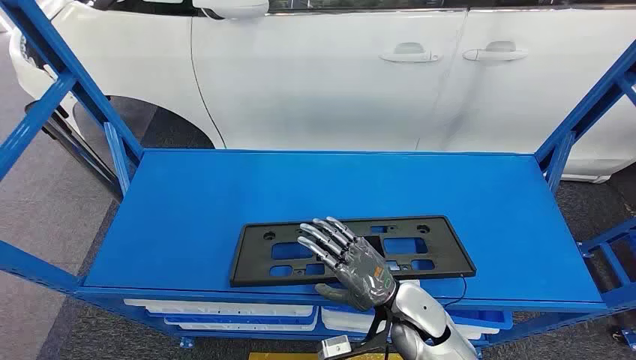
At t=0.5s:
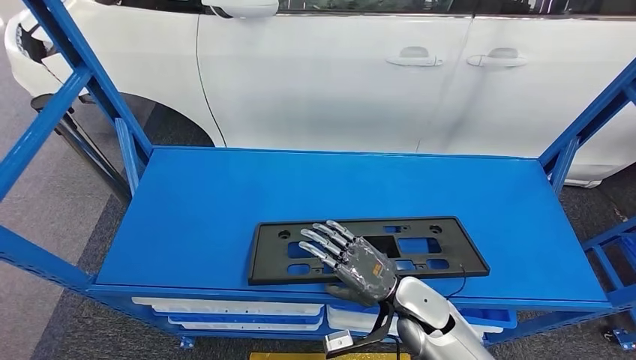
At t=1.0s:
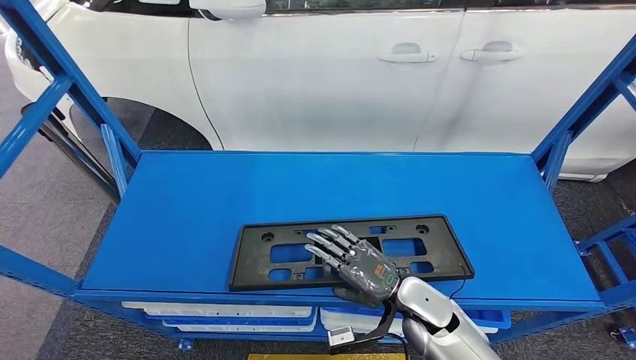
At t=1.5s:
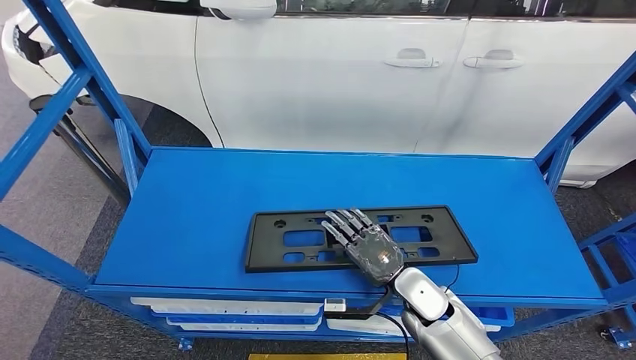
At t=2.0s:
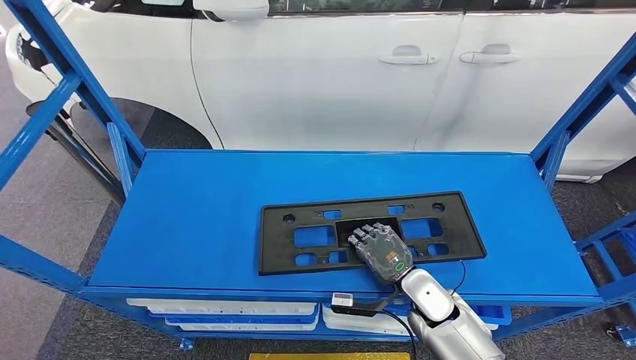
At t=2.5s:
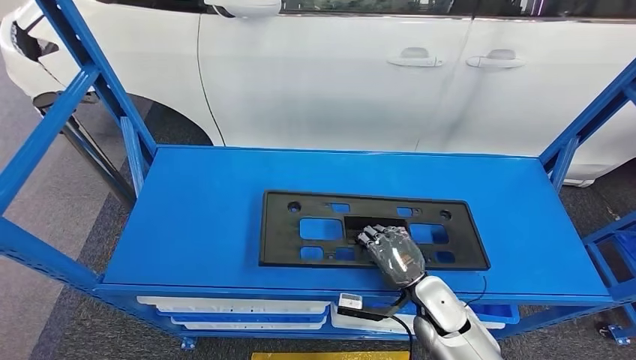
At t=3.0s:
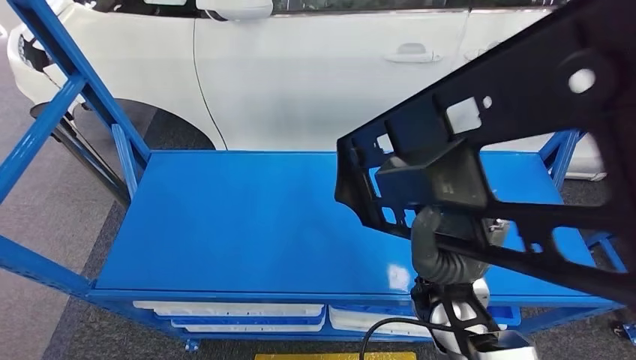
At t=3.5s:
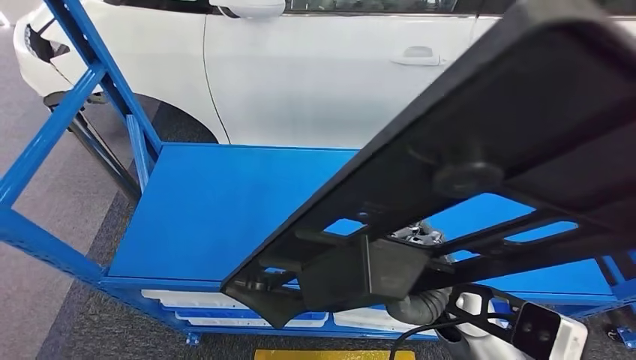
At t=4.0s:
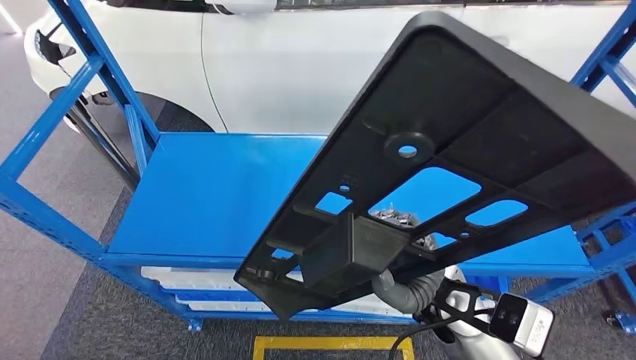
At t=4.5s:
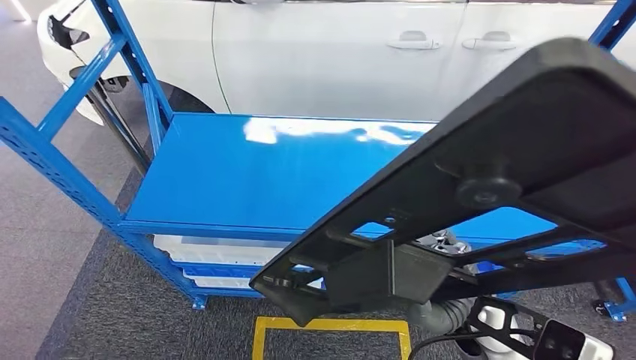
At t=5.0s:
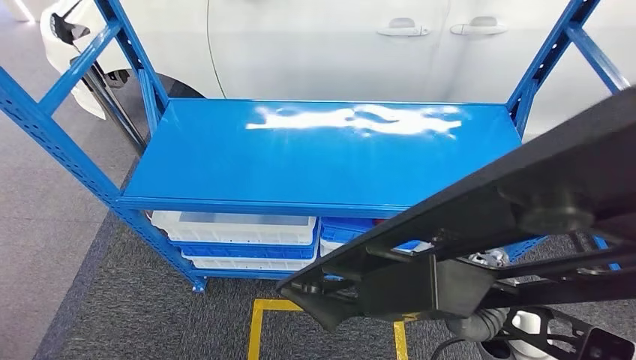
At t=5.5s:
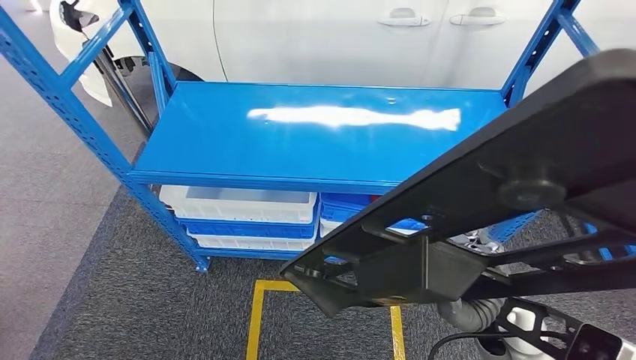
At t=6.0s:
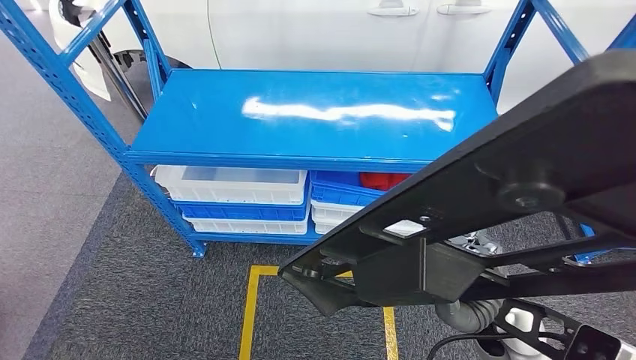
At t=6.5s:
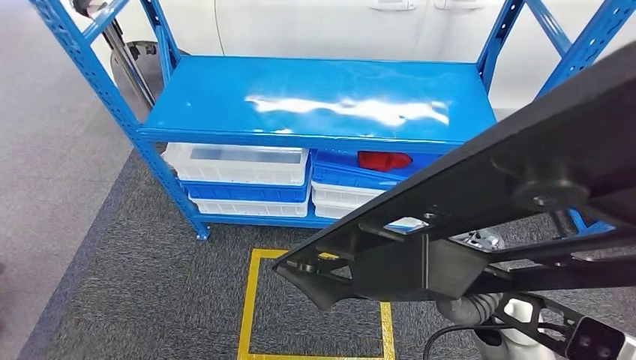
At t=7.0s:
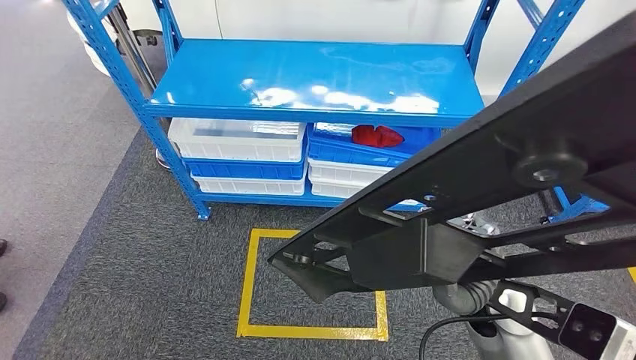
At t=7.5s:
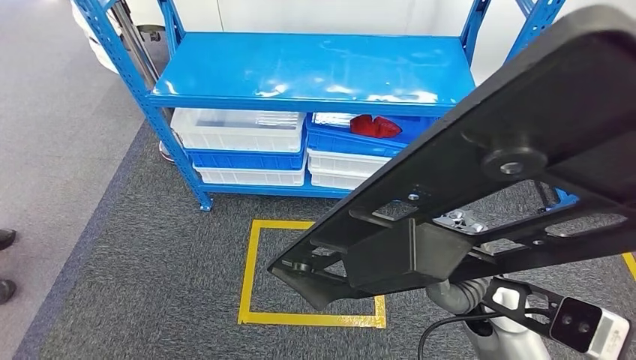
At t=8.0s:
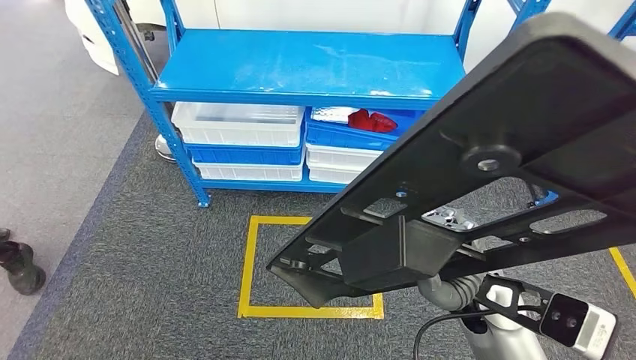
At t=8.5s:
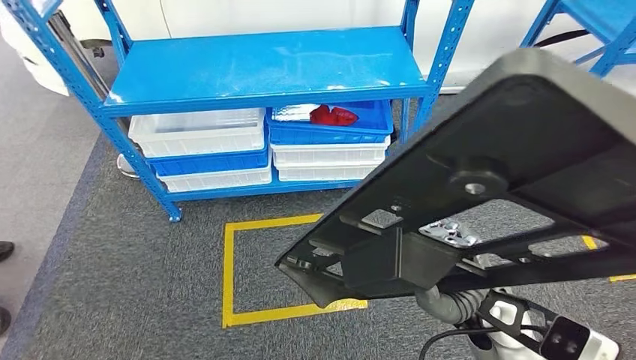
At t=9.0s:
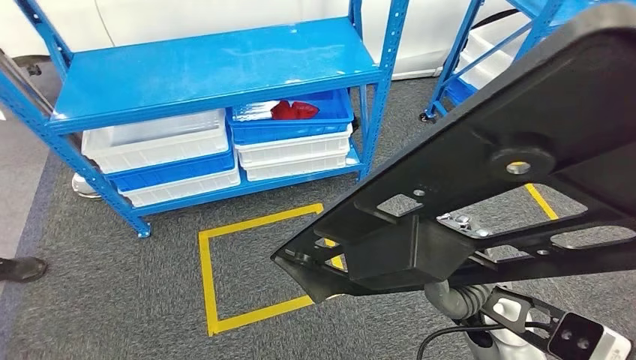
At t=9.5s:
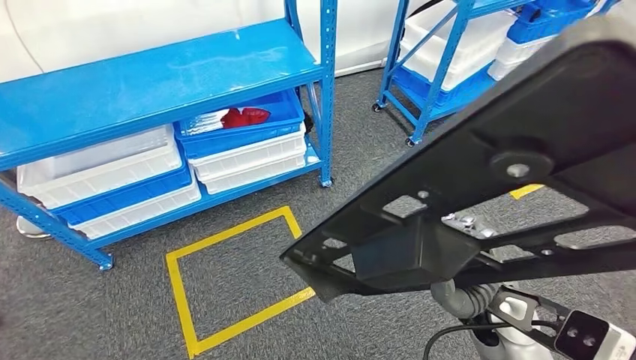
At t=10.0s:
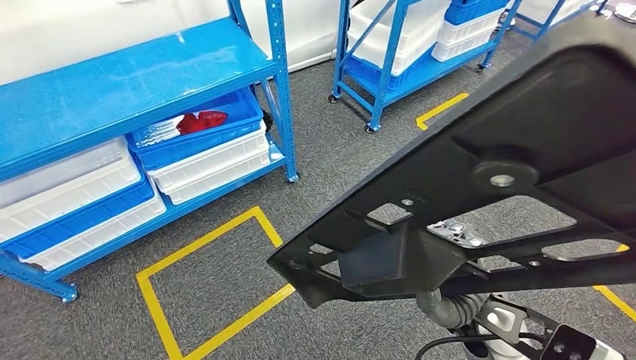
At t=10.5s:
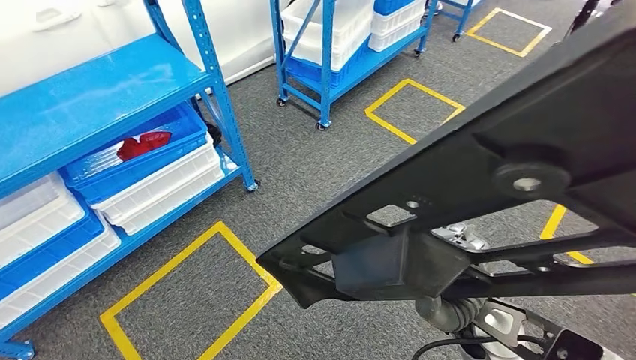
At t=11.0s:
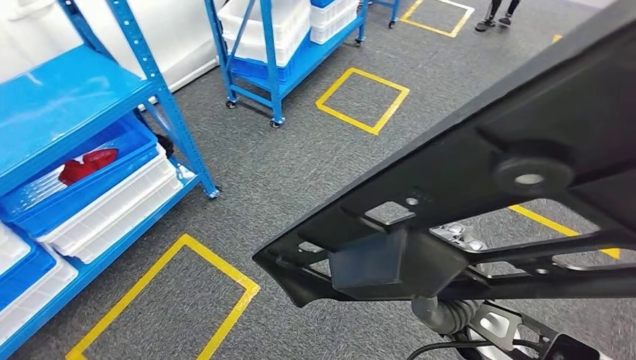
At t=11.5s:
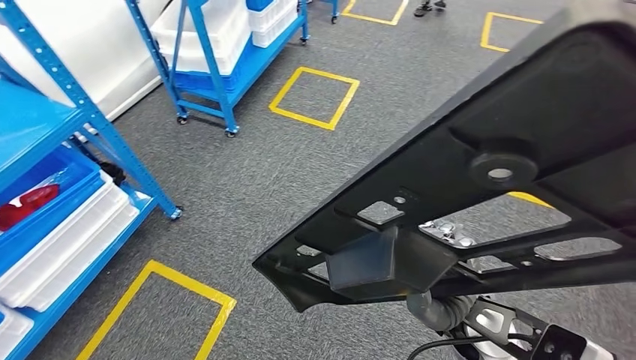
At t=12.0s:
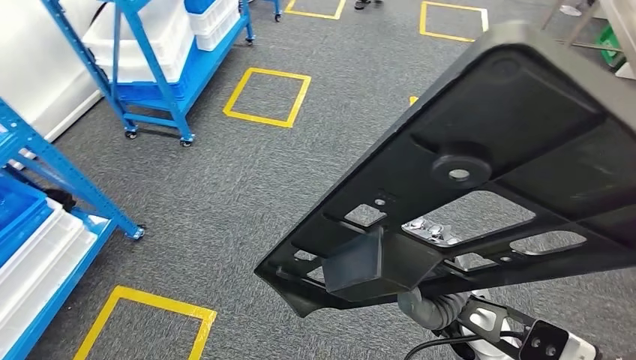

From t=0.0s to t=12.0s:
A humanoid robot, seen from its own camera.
Step, from t=0.0s to t=4.5s: Pick up the large material from the shelf.

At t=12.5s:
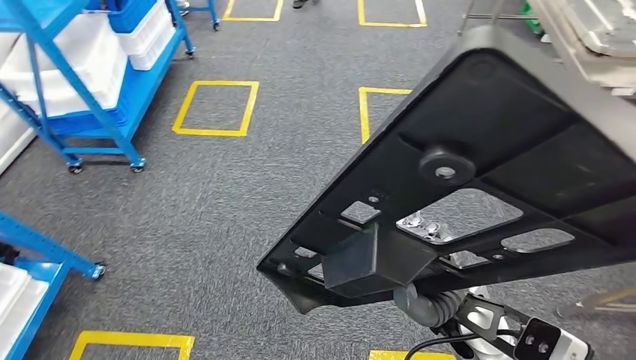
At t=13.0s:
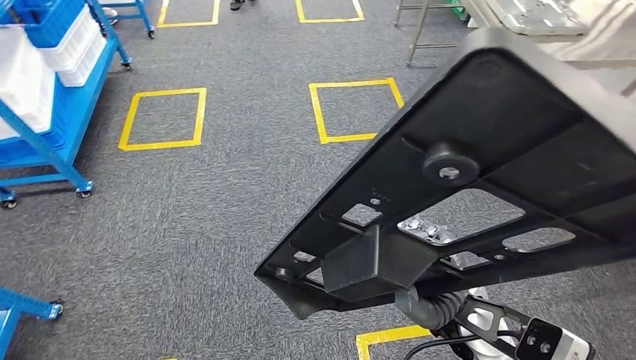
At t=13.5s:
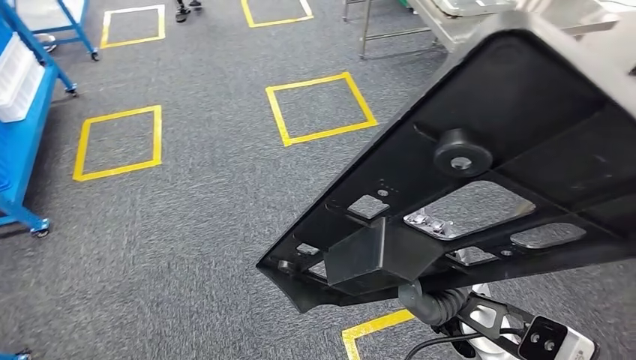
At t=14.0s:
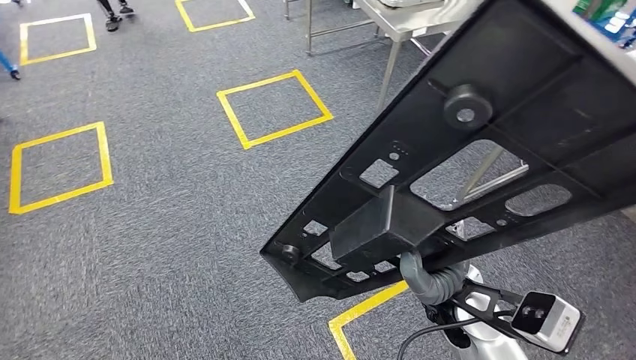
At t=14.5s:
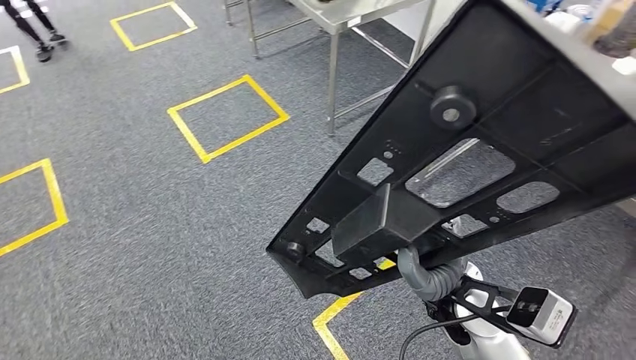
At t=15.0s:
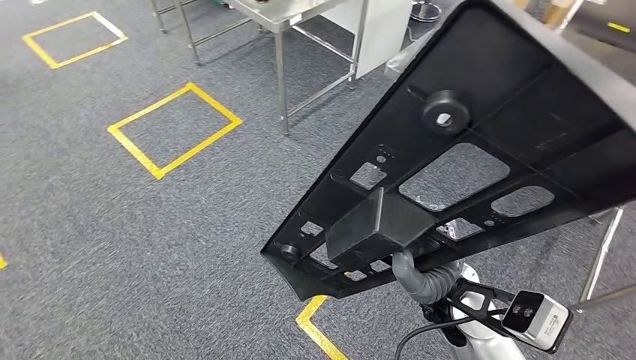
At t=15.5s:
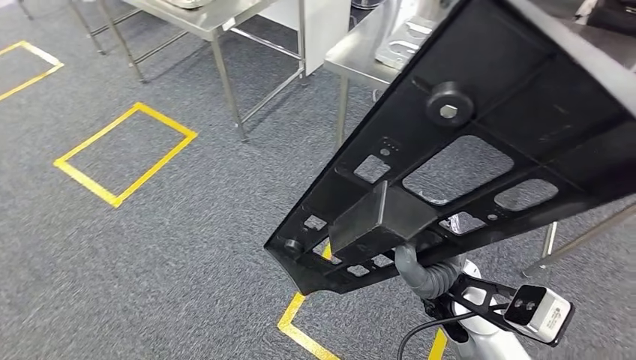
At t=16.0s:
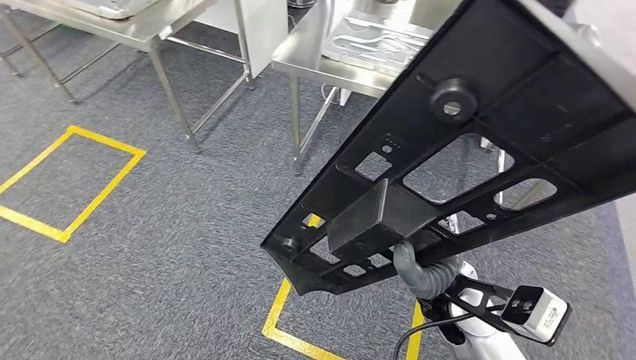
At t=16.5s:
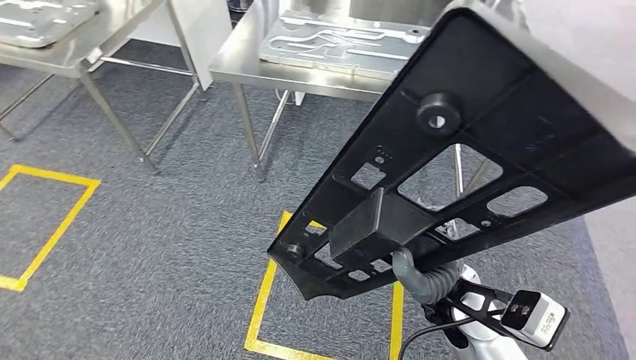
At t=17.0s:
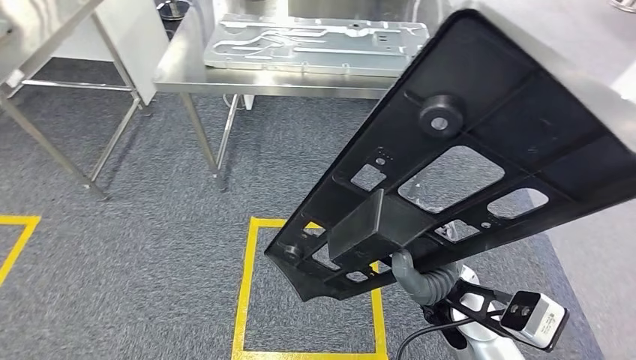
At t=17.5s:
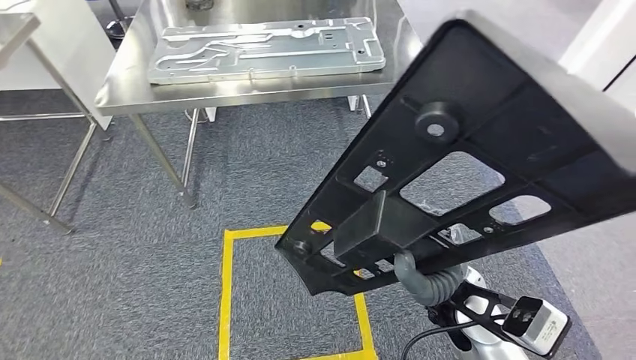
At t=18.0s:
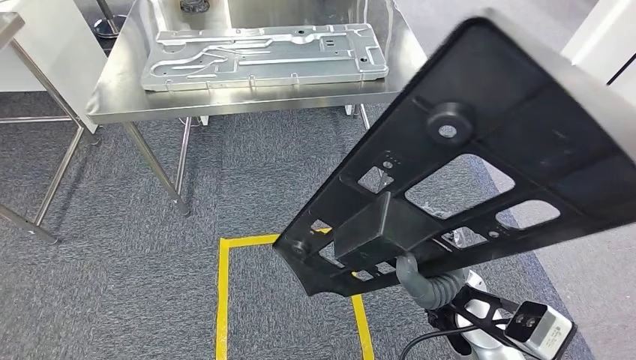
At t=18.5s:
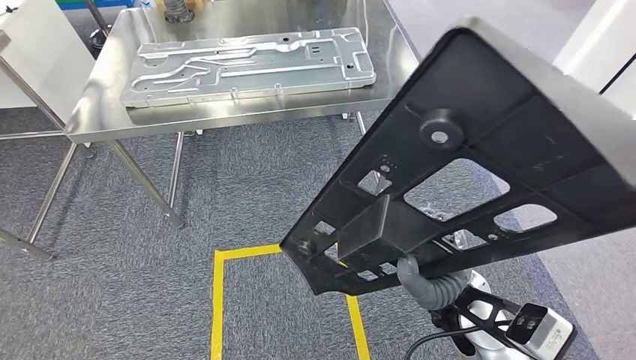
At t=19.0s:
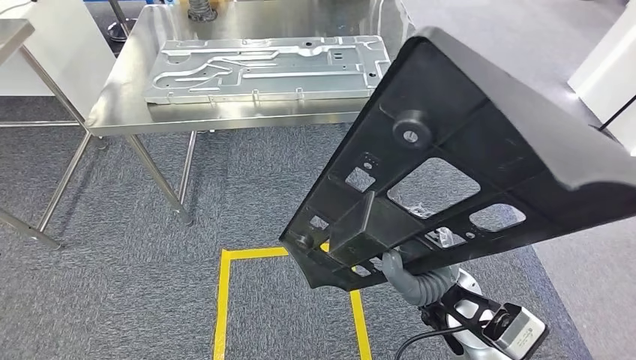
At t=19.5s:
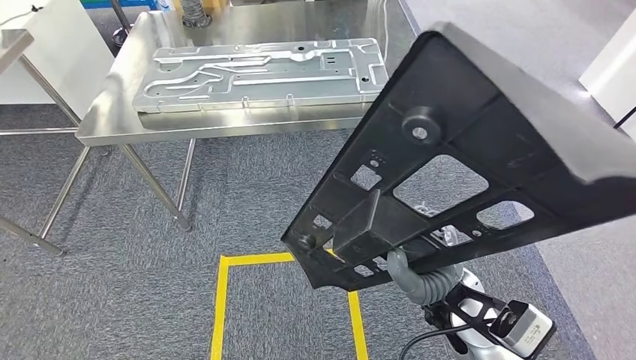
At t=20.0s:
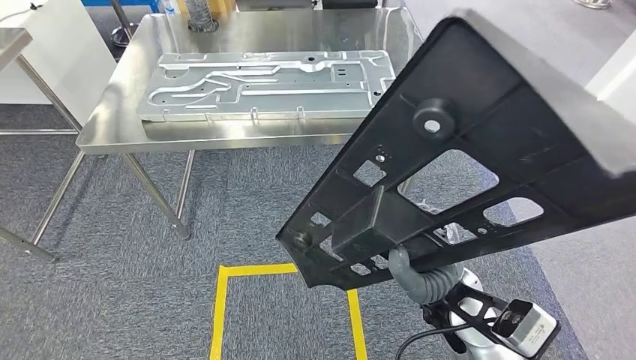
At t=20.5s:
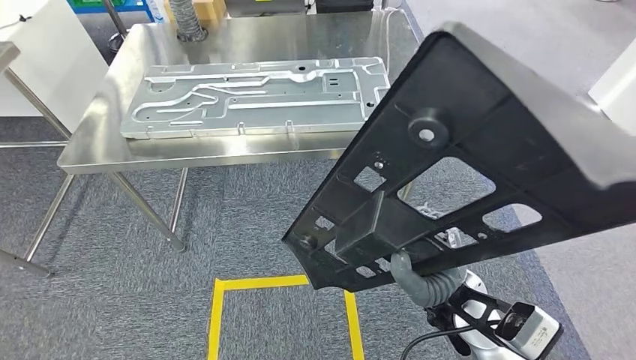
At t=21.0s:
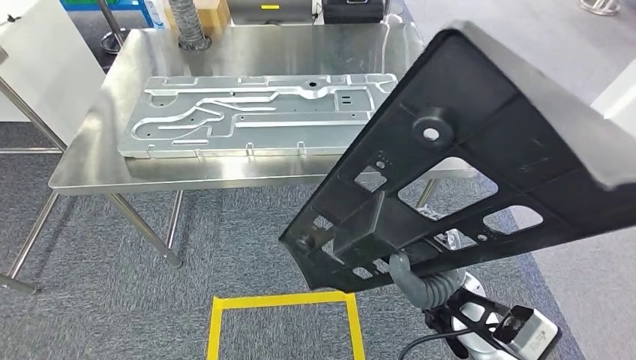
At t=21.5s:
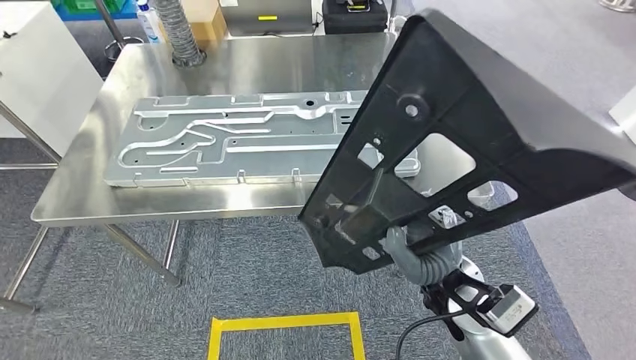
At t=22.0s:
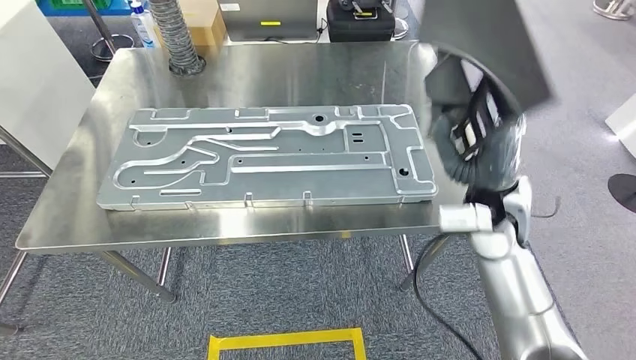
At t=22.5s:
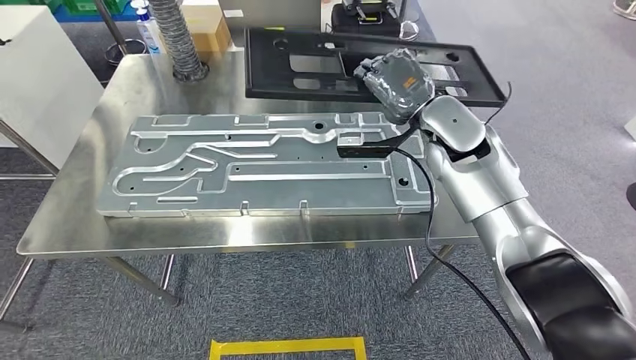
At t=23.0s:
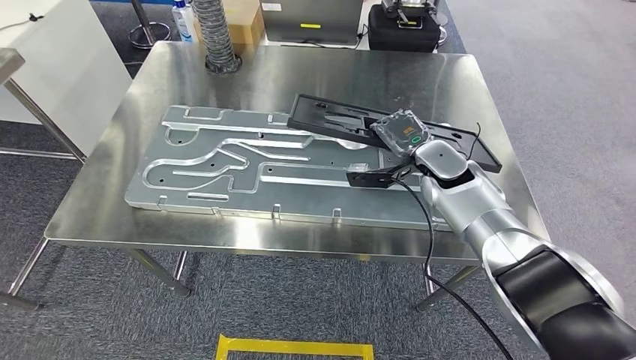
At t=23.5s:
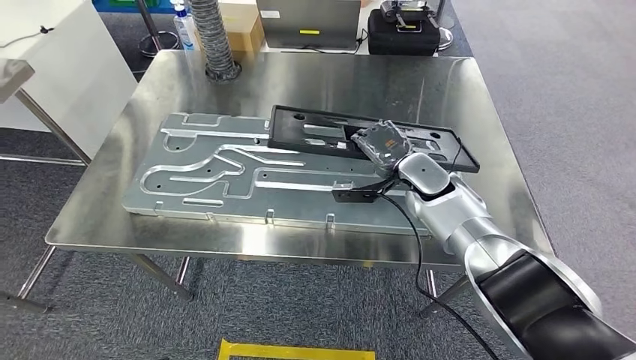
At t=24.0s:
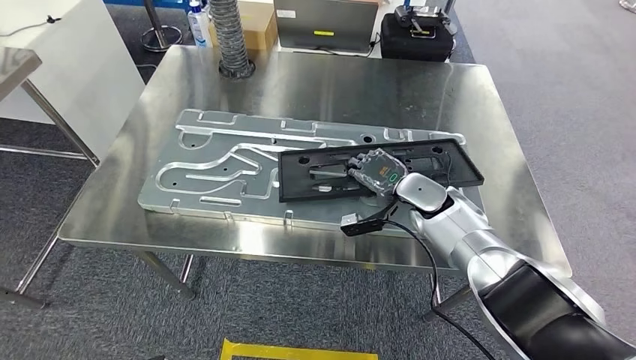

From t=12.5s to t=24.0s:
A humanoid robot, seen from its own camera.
Step, from t=12.5s to t=21.5s: Move the large material to the workbench.
